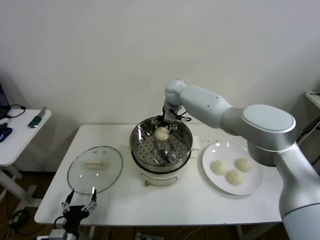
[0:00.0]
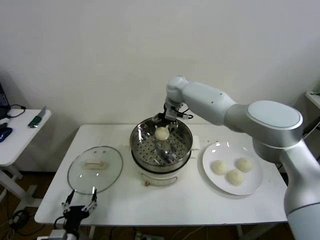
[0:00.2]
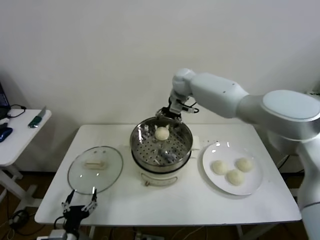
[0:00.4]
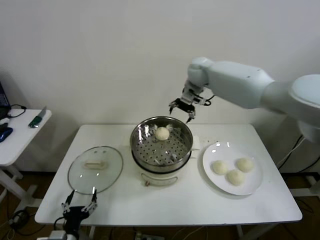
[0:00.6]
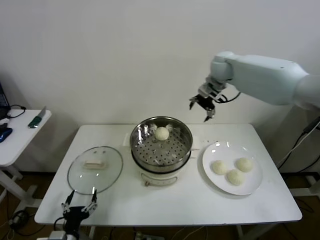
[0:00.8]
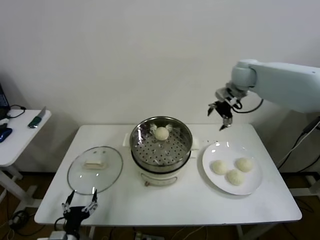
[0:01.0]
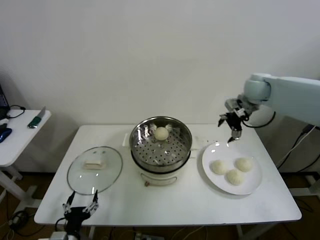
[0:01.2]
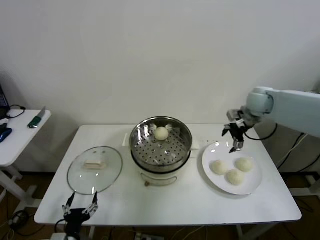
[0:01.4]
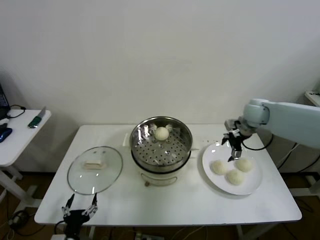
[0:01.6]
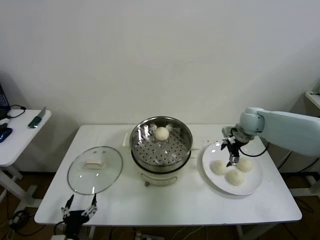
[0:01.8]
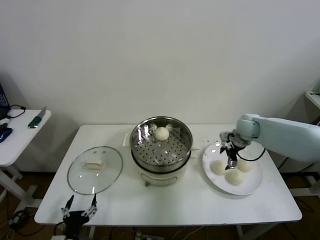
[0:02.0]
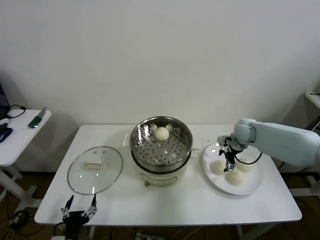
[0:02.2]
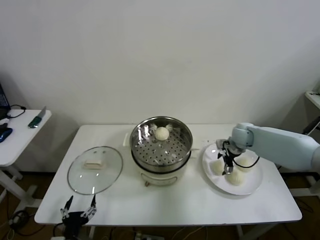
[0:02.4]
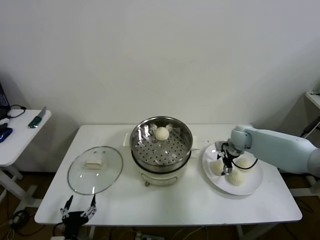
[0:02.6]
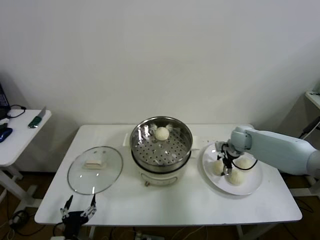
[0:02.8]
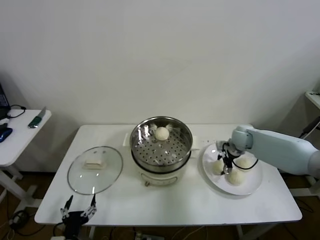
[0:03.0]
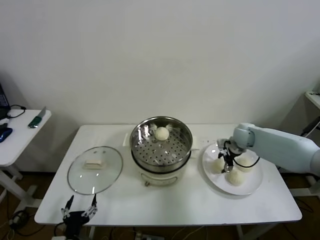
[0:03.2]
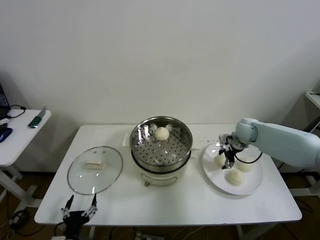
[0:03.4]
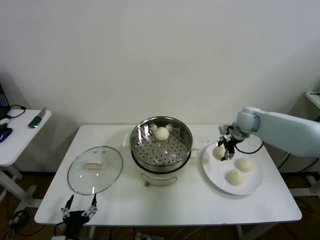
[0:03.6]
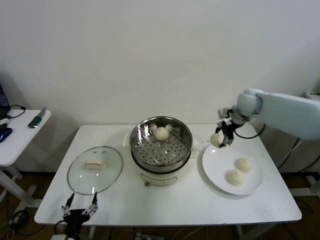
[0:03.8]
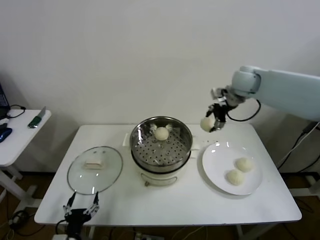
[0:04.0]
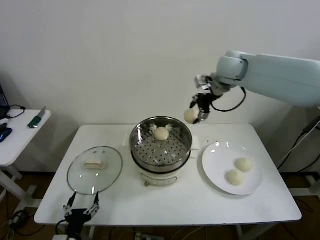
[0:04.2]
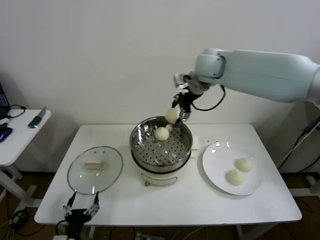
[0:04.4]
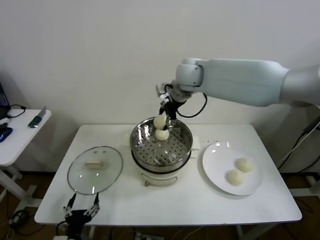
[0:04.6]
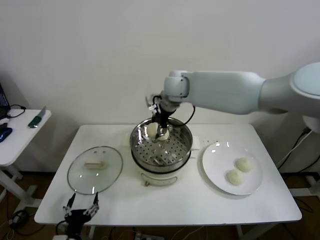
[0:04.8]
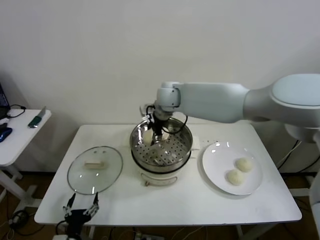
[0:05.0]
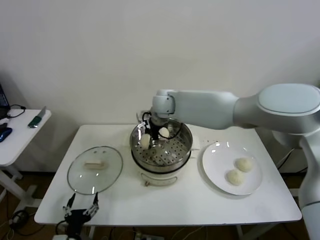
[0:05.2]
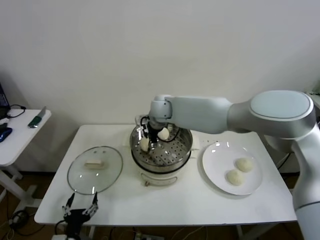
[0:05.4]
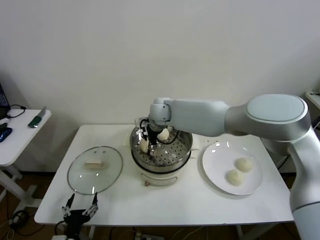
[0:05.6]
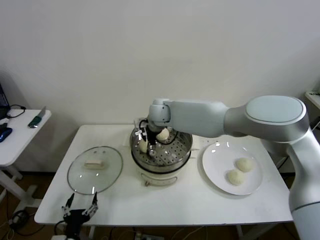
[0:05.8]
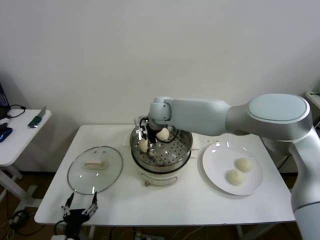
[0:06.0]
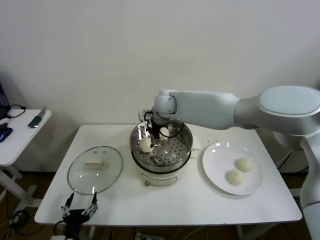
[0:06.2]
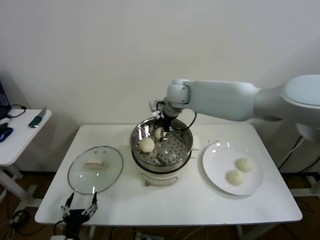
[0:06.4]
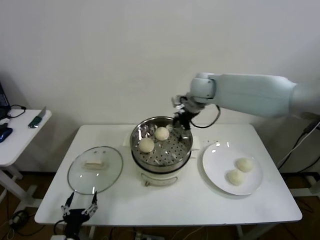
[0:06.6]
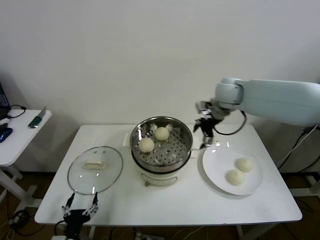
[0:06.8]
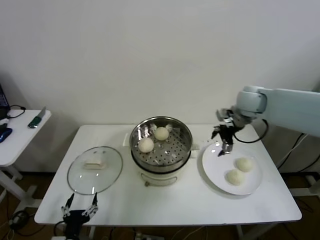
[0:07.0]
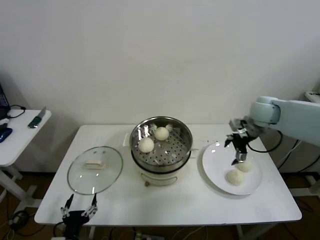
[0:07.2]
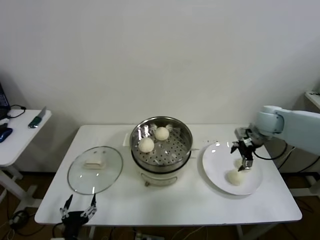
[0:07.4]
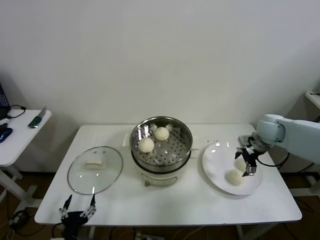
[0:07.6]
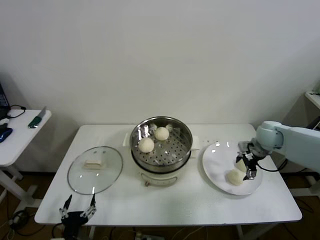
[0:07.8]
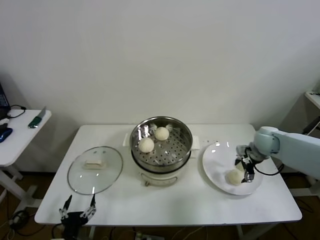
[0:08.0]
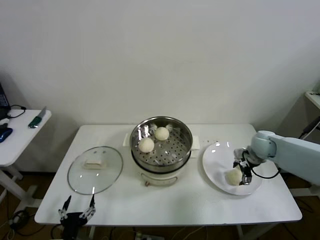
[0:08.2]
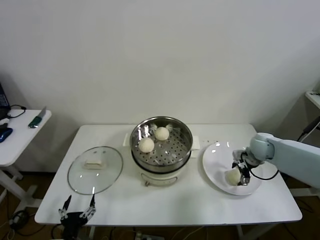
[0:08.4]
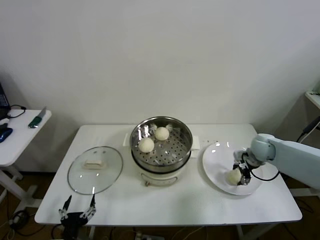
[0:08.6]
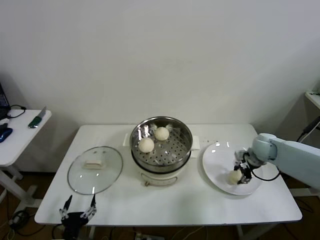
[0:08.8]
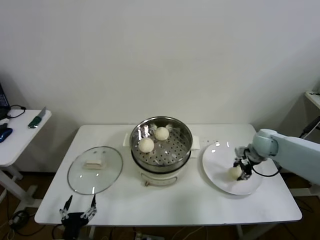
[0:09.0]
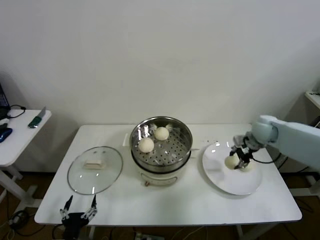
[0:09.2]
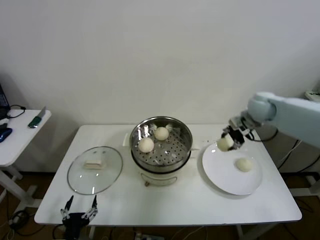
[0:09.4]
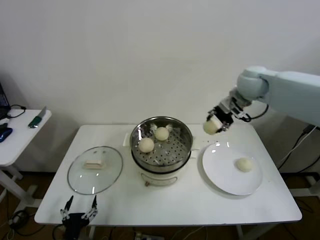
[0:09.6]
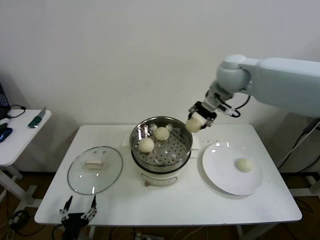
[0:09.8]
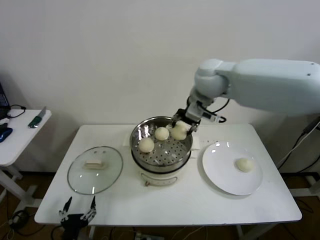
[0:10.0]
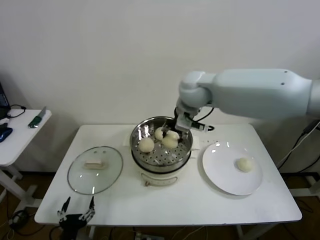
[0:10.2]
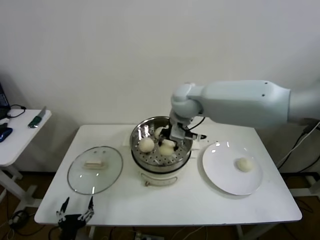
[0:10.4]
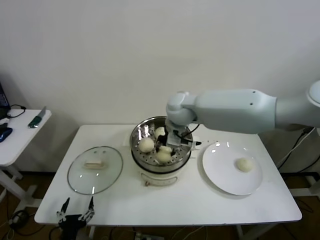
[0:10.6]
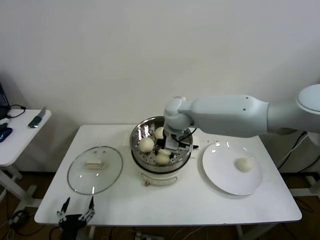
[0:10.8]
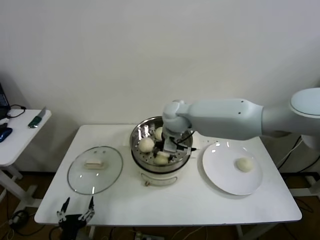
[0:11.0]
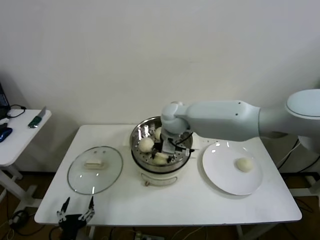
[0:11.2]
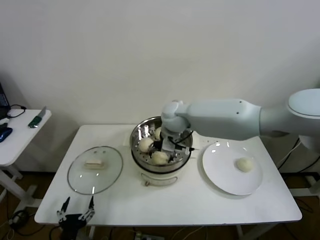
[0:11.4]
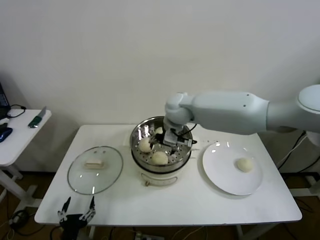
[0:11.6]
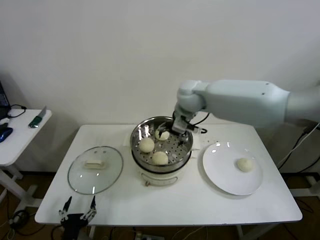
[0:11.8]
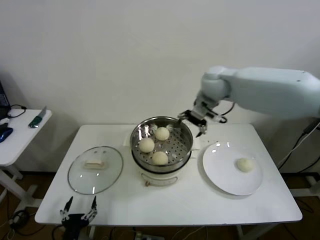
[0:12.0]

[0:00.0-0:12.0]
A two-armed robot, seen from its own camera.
Step, 0.0 to 3.0 s: Grasp the baozi in the plate with right gripper.
Step, 3.2 to 5.8 s: Place the baozi on the steamer with right gripper.
Step, 6.0 to 8.6 s: Grasp the baozi in the plate with right gripper.
Step, 8.8 to 11.2 s: Place the baozi on the steamer with right gripper.
0.0 to 1.6 s: The right gripper is displaced to the right by some 30 cm.
1.6 to 3.0 s: The right gripper goes approximately 10 cm downward, and closes its fingers.
3.0 to 4.4 s: The right gripper is displaced upward and to the left by roughly 35 cm.
4.4 to 6.0 s: The right gripper heads downward and to the left, covering roughly 20 cm, and opens.
6.0 to 7.6 s: The right gripper heads to the right, covering about 40 cm.
7.6 to 9.0 s: The right gripper is displaced downward by about 5 cm, and closes up.
9.0 to 10.4 s: The right gripper travels to the left and upward by roughly 35 cm.
10.4 to 12.0 s: The right gripper travels to the right by approximately 10 cm, and opens up.

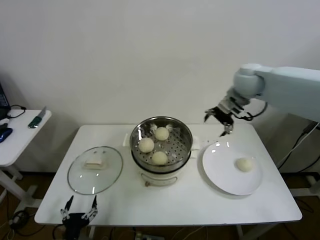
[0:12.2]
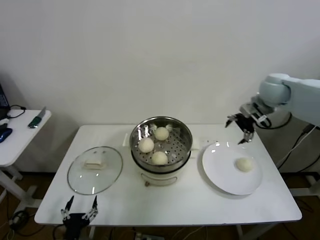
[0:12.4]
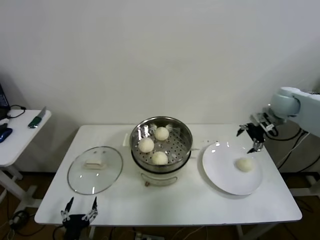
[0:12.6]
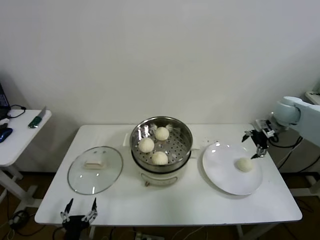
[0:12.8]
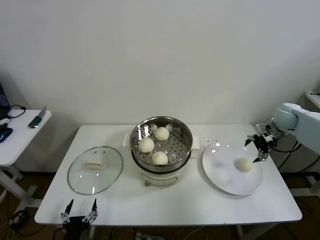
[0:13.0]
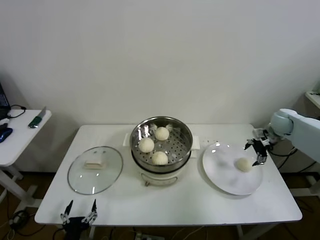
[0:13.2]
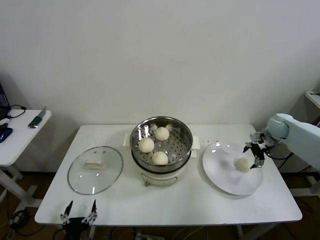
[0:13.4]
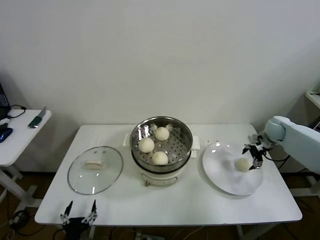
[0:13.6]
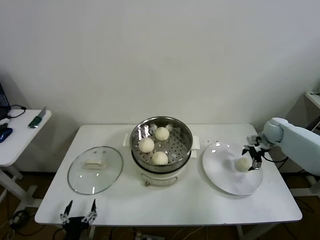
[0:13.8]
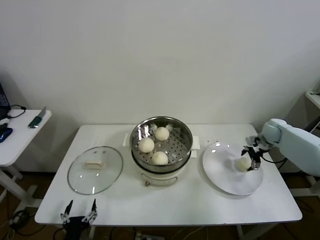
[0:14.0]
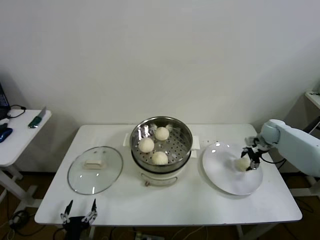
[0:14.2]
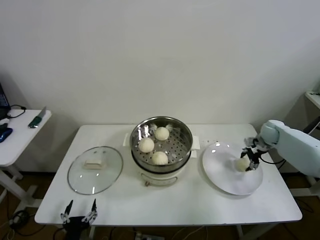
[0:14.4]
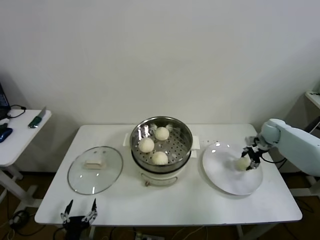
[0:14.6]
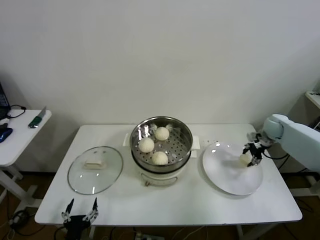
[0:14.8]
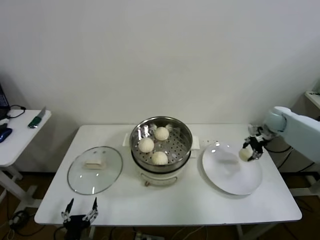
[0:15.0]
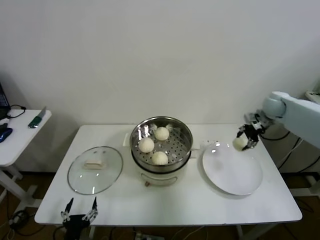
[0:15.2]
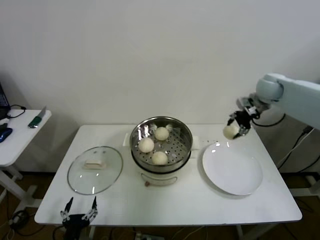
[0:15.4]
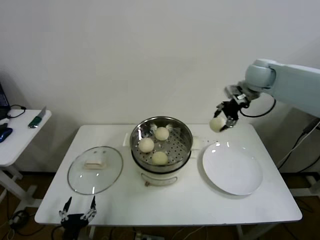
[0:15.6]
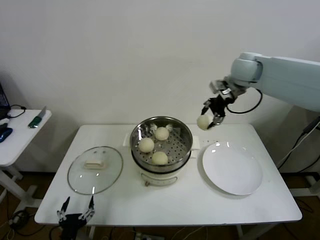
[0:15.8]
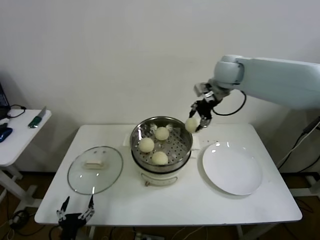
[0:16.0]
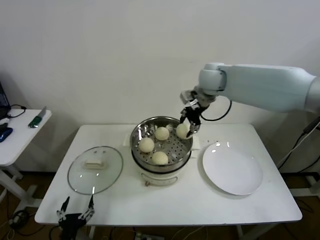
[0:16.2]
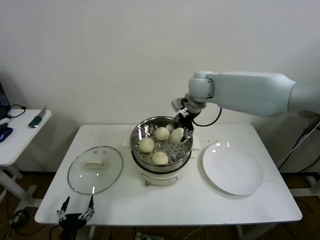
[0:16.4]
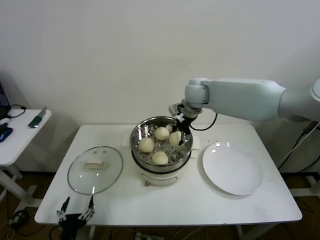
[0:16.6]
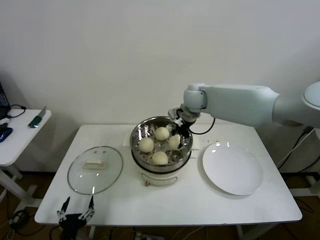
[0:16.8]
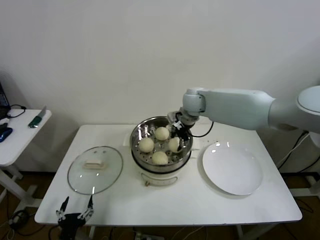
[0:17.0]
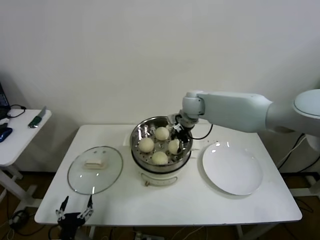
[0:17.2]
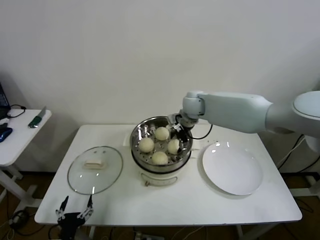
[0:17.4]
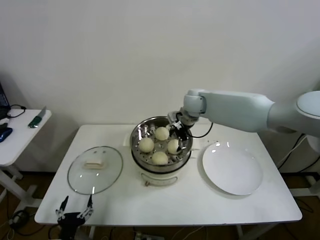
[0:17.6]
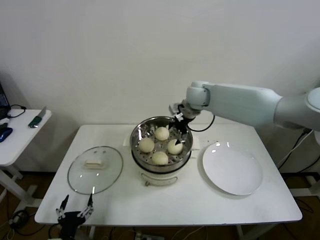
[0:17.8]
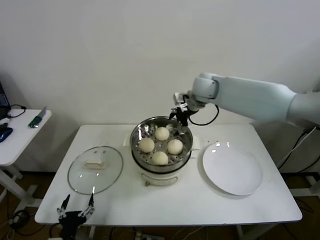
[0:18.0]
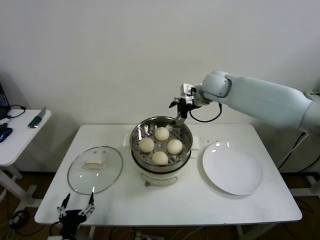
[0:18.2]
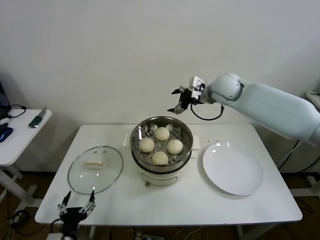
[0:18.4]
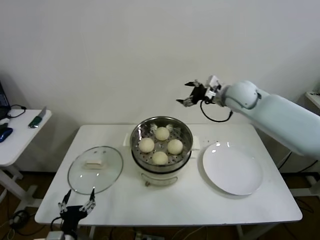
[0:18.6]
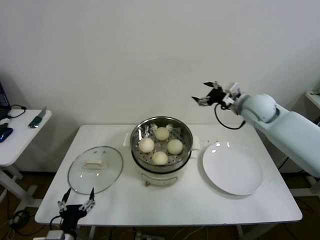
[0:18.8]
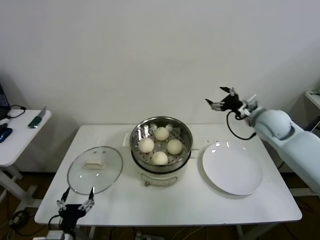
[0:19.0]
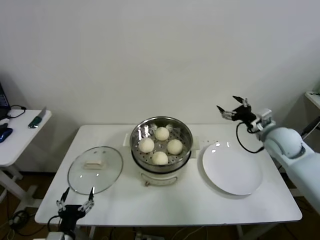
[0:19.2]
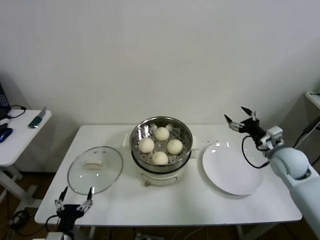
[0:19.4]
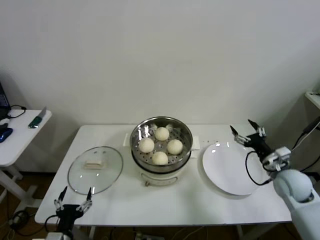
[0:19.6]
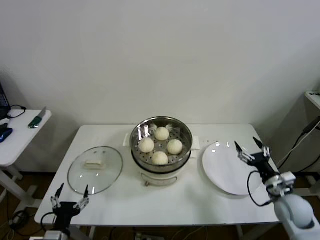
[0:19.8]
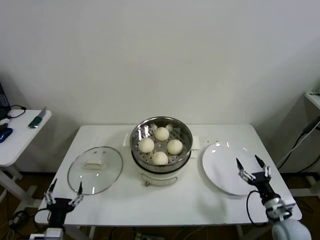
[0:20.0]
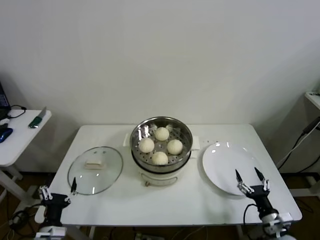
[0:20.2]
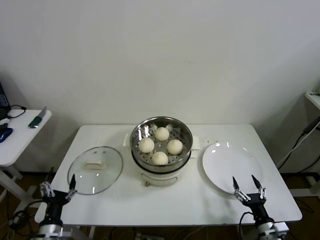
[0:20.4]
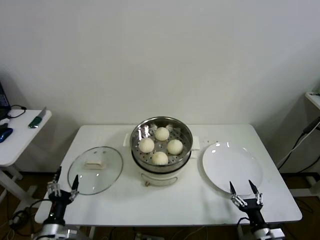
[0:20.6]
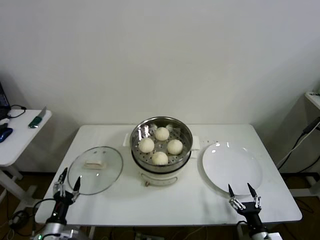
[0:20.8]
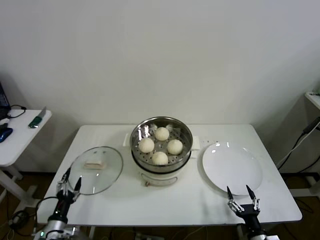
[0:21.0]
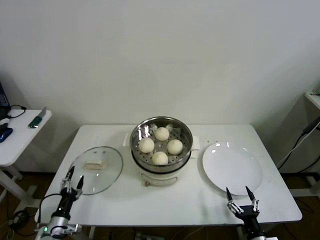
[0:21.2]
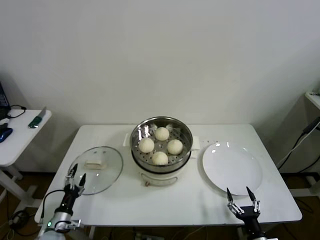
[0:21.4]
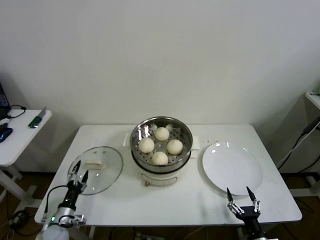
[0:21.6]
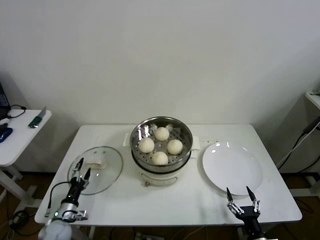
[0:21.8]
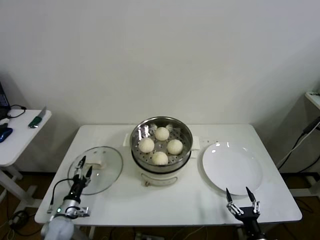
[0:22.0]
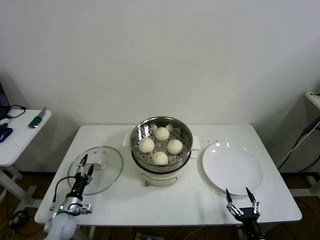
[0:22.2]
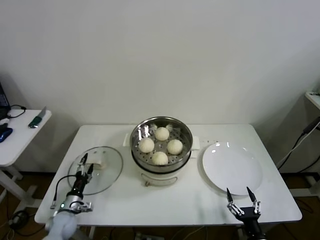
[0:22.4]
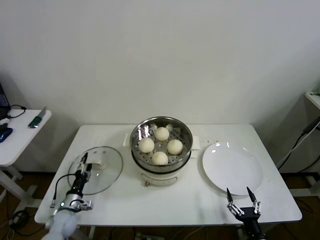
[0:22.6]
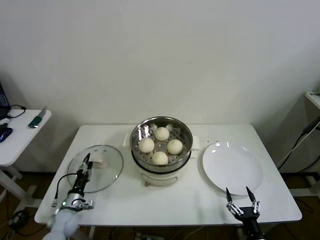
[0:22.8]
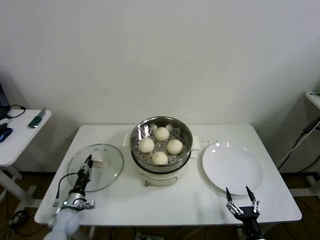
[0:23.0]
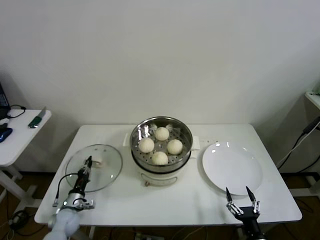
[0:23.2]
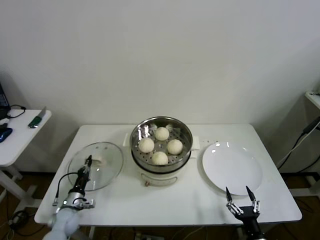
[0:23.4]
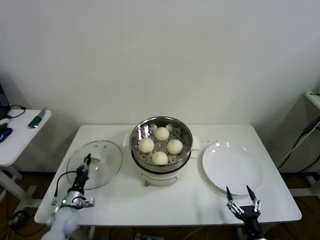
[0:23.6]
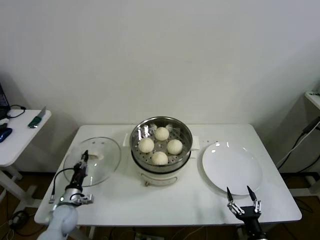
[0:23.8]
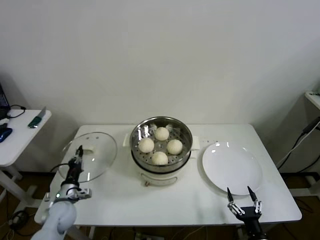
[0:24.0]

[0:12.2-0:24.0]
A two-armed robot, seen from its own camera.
Step, 12.2 to 14.4 s: Grasp the baozi in the plate with right gripper.
Step, 14.6 to 17.2 s: Place the baozi on the steamer with right gripper.
Step, 17.6 to 23.2 s: Grasp the pot lid with left gripper.
12.2 to 13.6 s: The right gripper travels downward and to the right by about 30 cm.
13.6 to 15.2 s: The right gripper goes about 10 cm upward, and closes its fingers.
15.2 to 16.6 s: The right gripper moves to the left, approximately 30 cm.
16.6 to 18.2 s: The right gripper goes roughly 5 cm to the right, travels downward and back again, about 5 cm each way, and opens up.
18.2 to 19.6 s: The right gripper goes approximately 40 cm to the right, backward and downward.
19.6 to 21.0 s: The right gripper travels backward and downward by about 30 cm; the left gripper shifts roughly 10 cm to the left, downward and forward.
21.0 to 22.6 s: The left gripper travels forward by about 10 cm.
22.6 to 24.0 s: The left gripper is displaced upward by about 5 cm, and closes up.
